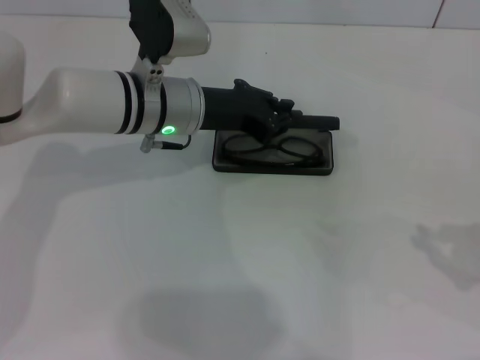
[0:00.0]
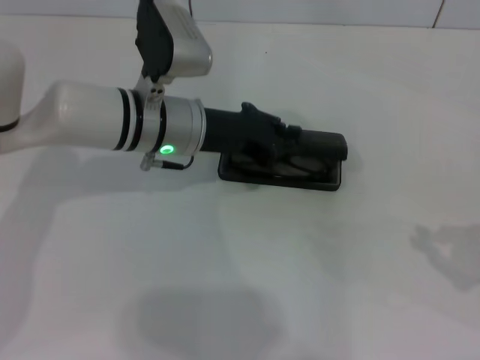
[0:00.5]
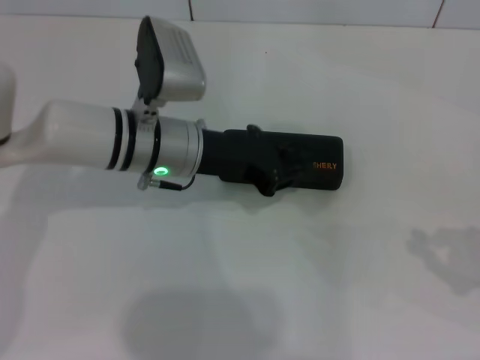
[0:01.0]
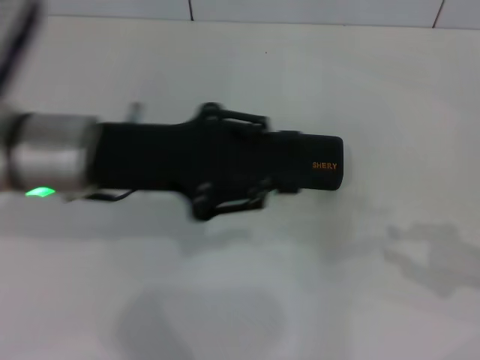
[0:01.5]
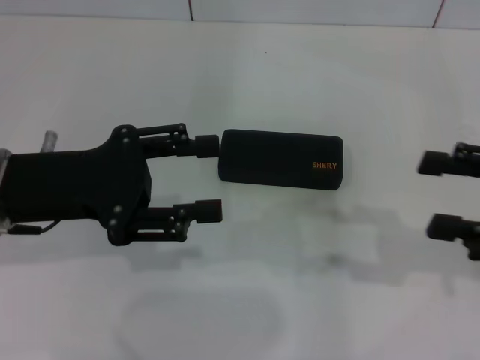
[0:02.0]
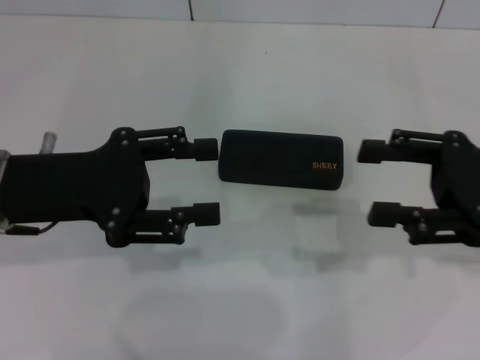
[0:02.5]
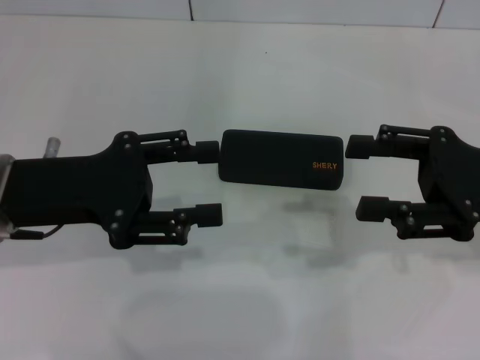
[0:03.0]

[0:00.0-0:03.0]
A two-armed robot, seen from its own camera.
0:00.0 to 0:01.5: The left gripper is displaced backward, to the left and upward by approximately 15 cm.
0:01.5 to 0:03.0: The left gripper moves to the left, some 5 cm, and opens. The right gripper goes approximately 10 cm to the left and forward, and opens.
